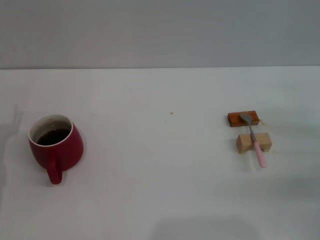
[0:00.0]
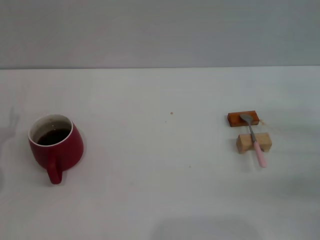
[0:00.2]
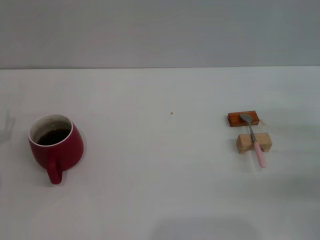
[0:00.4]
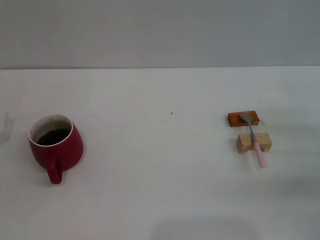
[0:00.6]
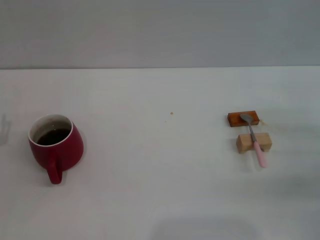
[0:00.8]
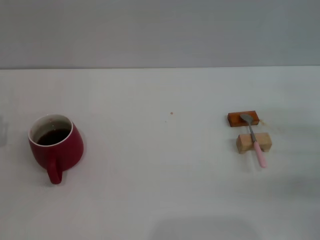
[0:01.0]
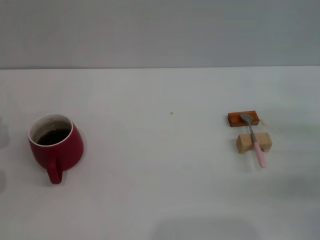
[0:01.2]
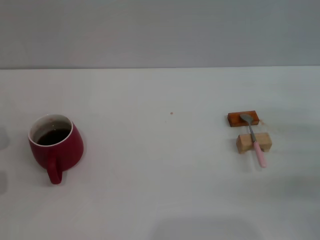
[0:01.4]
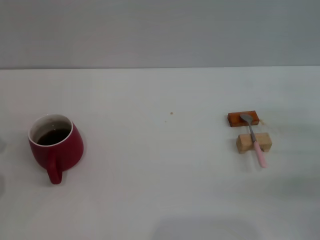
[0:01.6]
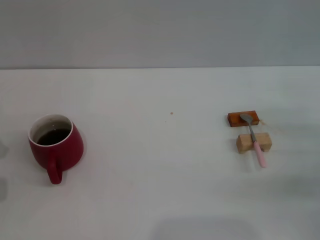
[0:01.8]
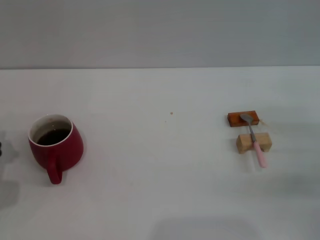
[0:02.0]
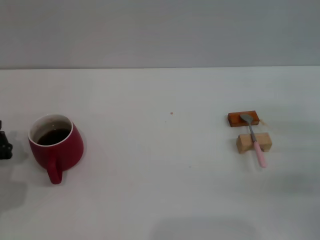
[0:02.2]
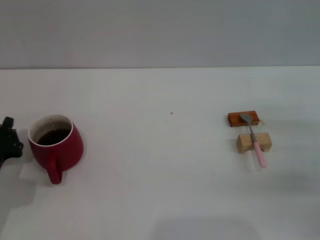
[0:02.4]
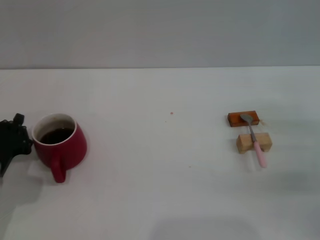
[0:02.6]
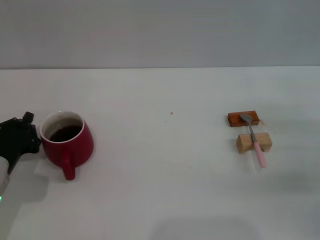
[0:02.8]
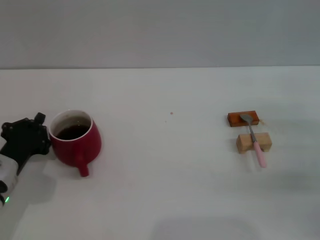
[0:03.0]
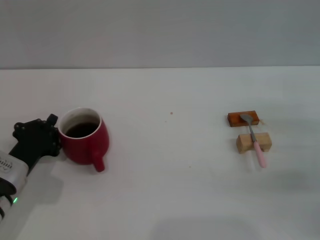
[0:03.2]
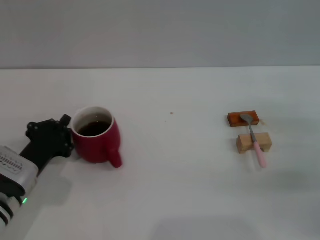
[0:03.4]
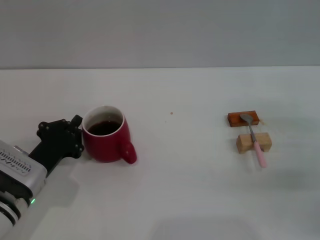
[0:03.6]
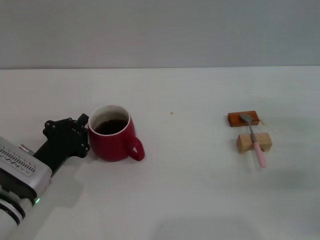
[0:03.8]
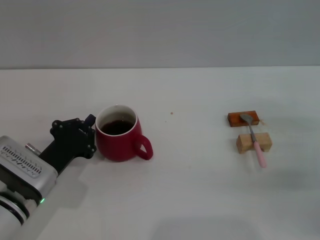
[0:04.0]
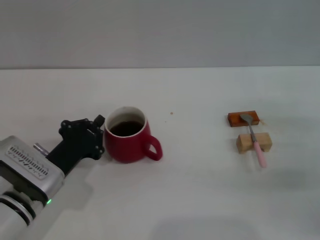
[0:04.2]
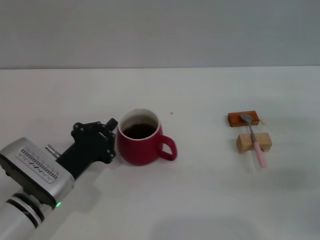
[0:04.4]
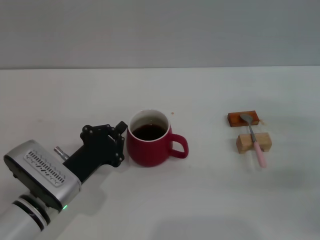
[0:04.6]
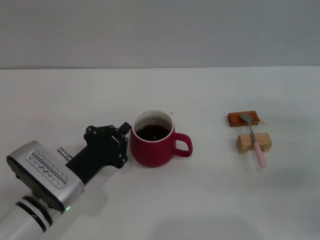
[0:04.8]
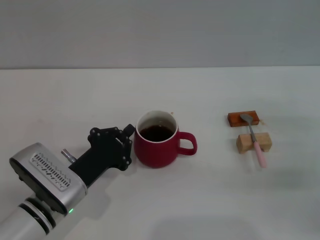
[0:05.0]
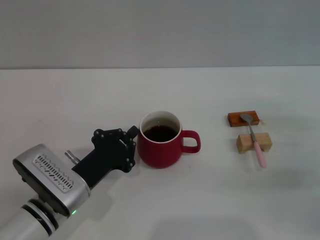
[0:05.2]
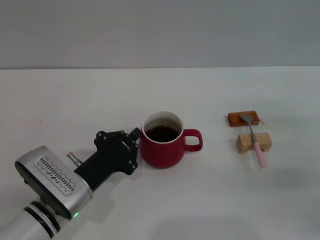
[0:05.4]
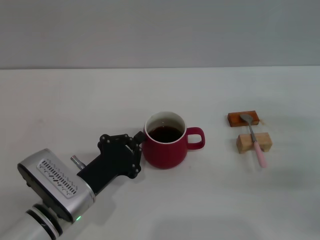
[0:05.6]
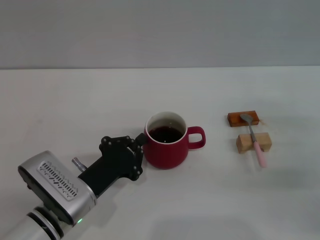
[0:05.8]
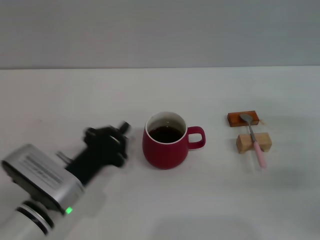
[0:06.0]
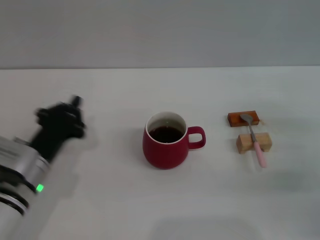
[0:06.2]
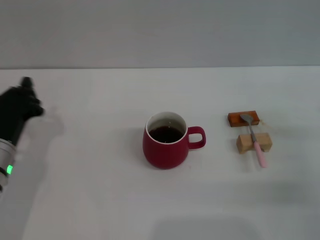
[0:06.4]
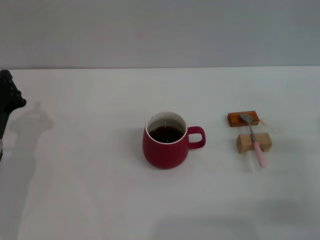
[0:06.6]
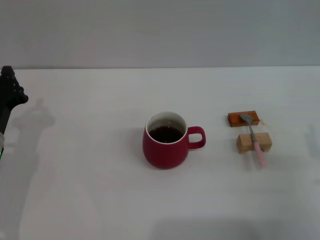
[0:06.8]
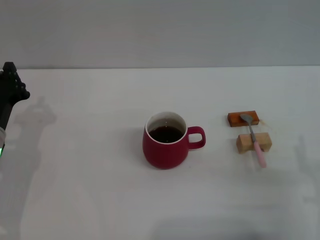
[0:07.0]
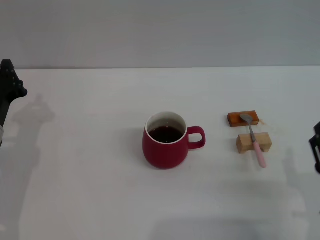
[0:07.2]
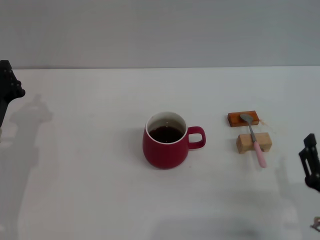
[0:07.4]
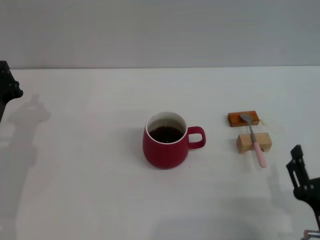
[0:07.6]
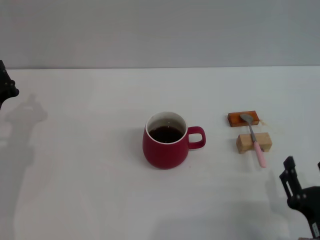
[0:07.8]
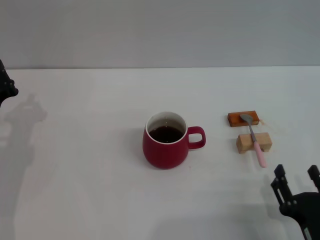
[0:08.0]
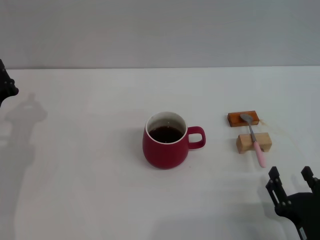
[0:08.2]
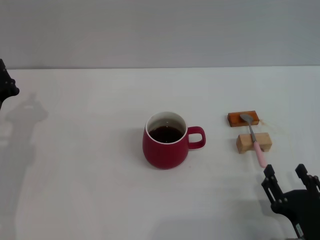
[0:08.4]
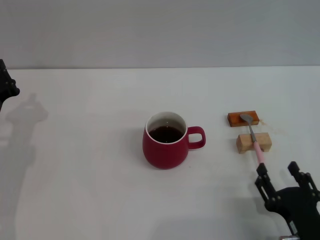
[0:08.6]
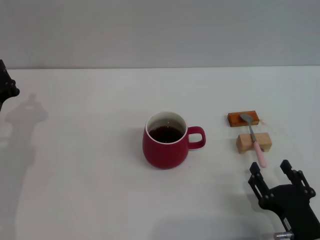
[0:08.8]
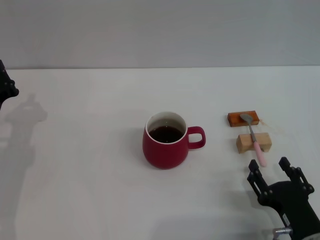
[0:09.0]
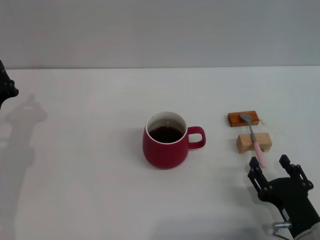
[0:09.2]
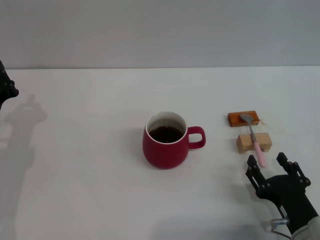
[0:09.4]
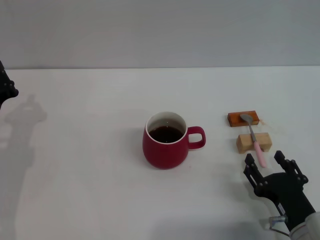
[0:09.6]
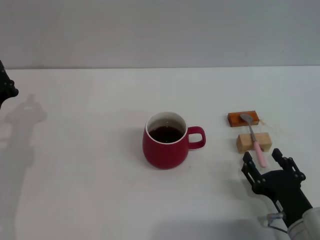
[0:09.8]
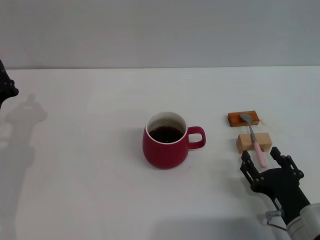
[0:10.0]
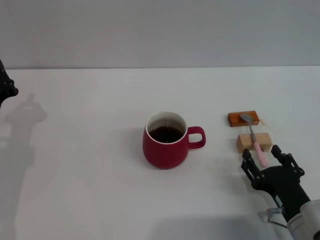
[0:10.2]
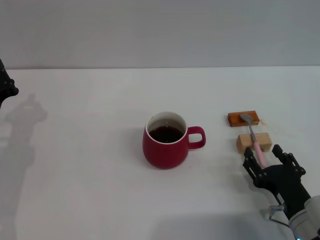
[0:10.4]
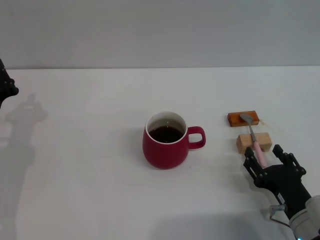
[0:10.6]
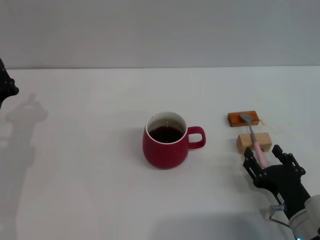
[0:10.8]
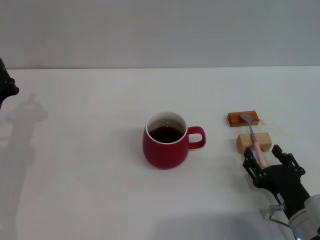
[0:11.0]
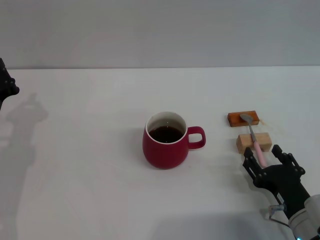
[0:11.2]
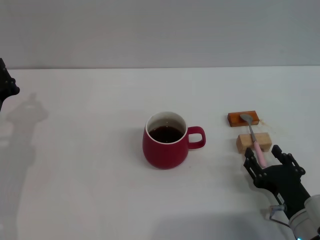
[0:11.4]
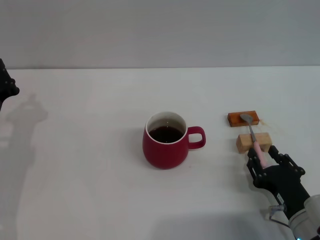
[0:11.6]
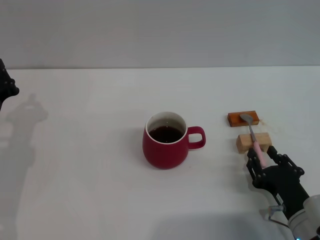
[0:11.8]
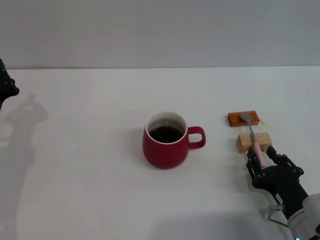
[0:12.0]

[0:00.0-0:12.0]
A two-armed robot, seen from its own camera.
Task of the whole recording: Move the red cup to the center, lift the pink spoon, stir it three times in the cup, and put the spoon into the cup.
Step, 0:00.0 to 0:06.0: Move the cup with coffee to the center of view with the left gripper.
0:01.6 to 0:03.0: The left gripper is displaced to the right by some 5 cm.
0:03.0 to 0:04.4: The left gripper moves to the right, approximately 10 cm.
0:04.4 to 0:06.0: The grippers make only small movements.
0:06.0 to 0:07.6: The right gripper heads backward and to the left, covering about 20 cm. The left gripper is displaced to the left and forward by some 10 cm.
0:07.6 to 0:09.0: The grippers stay close to where they were, moving slightly.
0:09.0 to 0:10.4: The grippers stay close to where they were, moving slightly.
0:10.4 to 0:12.0: The right gripper closes.

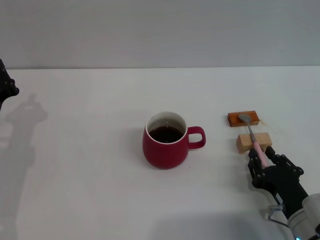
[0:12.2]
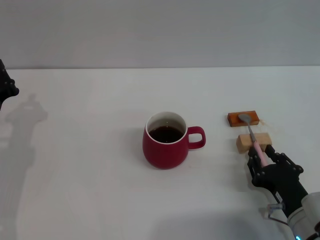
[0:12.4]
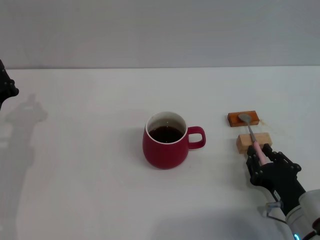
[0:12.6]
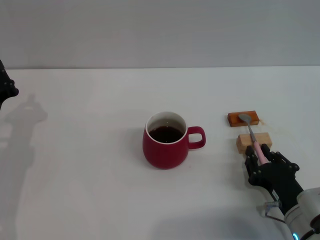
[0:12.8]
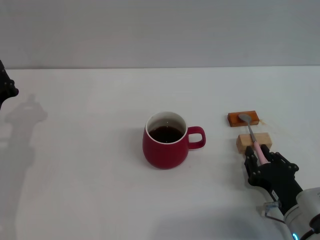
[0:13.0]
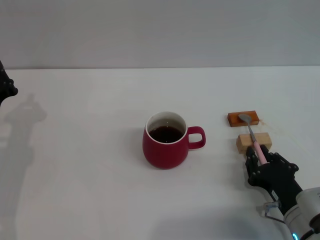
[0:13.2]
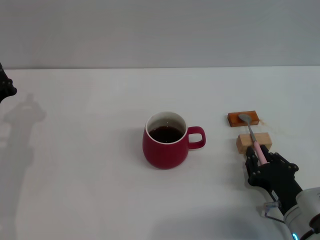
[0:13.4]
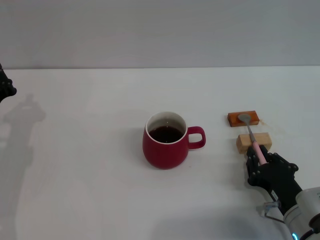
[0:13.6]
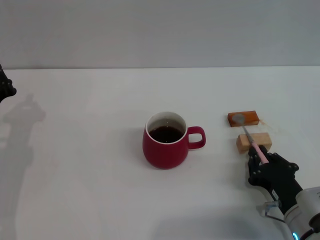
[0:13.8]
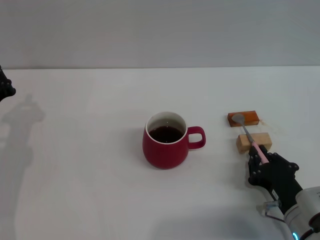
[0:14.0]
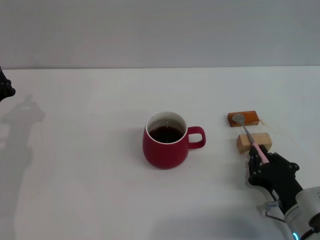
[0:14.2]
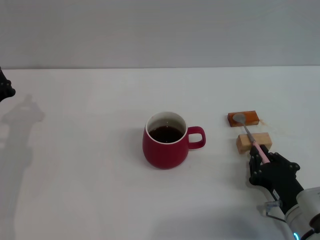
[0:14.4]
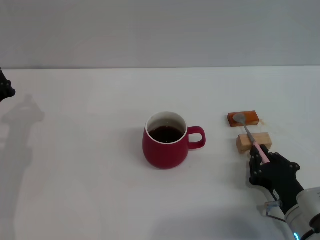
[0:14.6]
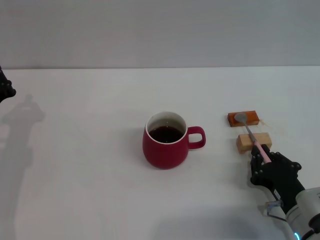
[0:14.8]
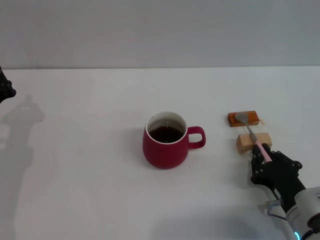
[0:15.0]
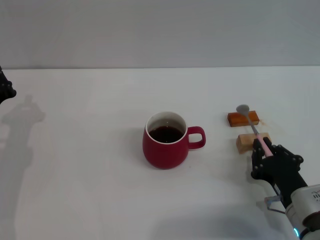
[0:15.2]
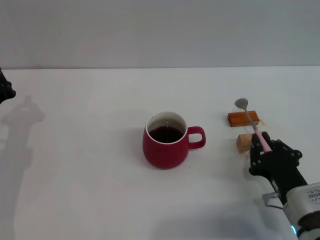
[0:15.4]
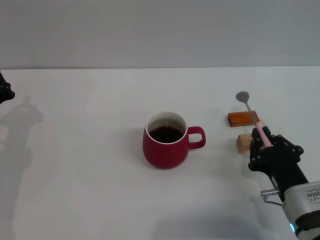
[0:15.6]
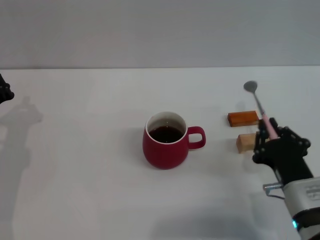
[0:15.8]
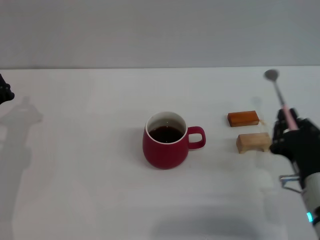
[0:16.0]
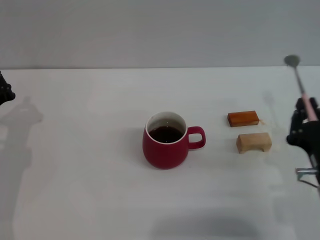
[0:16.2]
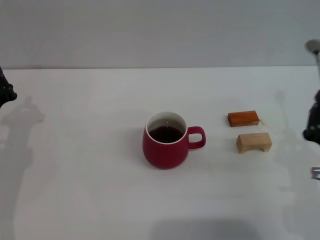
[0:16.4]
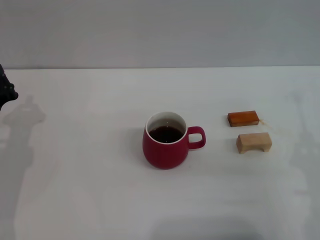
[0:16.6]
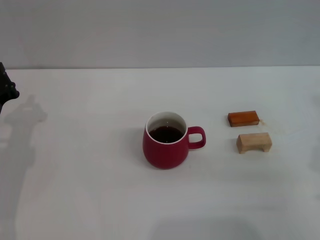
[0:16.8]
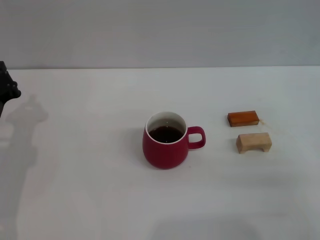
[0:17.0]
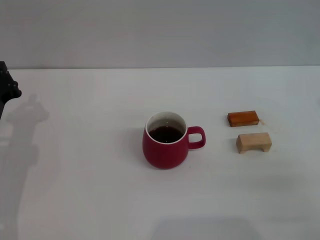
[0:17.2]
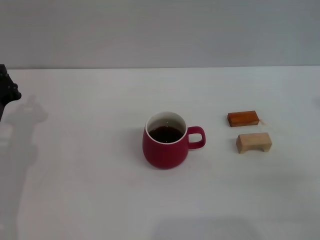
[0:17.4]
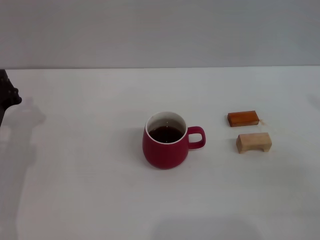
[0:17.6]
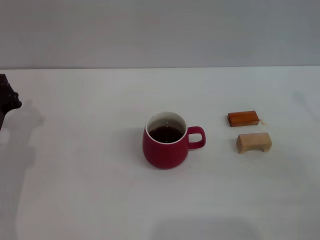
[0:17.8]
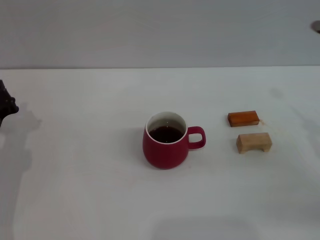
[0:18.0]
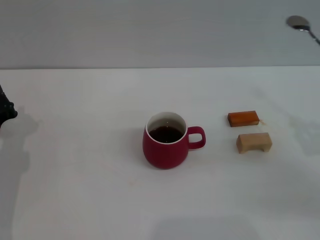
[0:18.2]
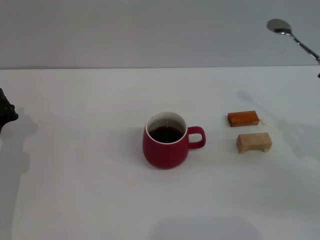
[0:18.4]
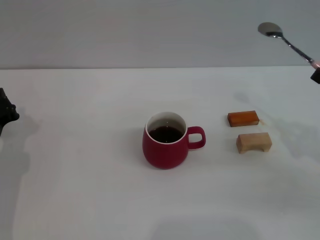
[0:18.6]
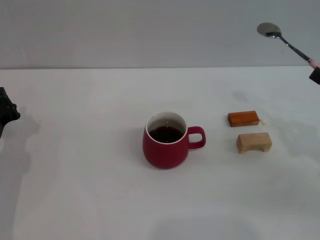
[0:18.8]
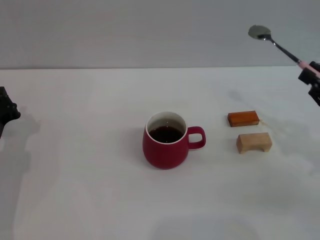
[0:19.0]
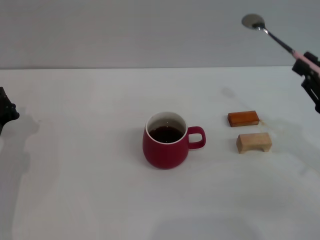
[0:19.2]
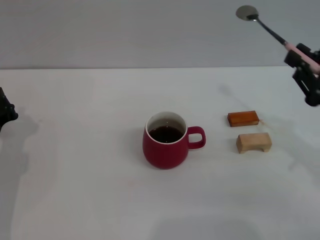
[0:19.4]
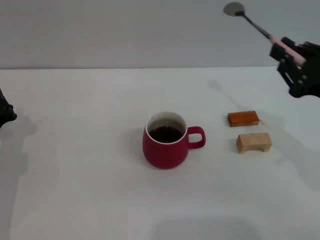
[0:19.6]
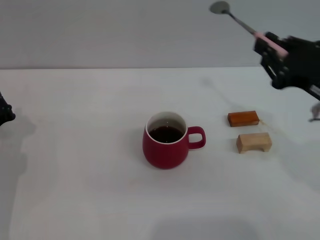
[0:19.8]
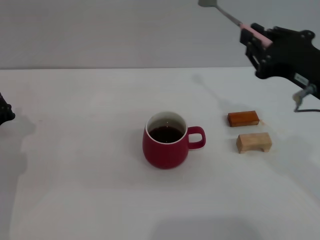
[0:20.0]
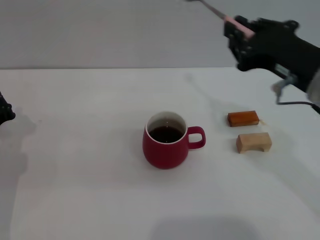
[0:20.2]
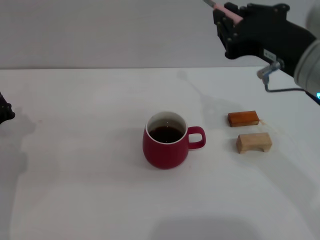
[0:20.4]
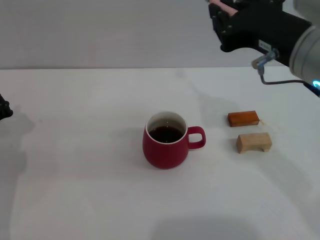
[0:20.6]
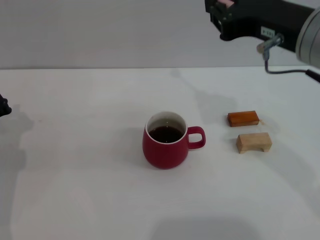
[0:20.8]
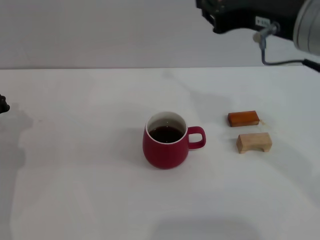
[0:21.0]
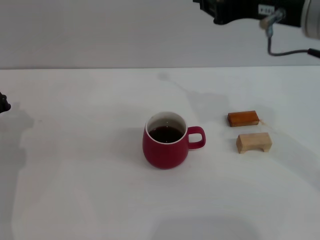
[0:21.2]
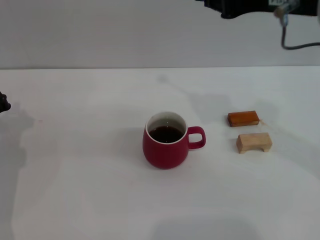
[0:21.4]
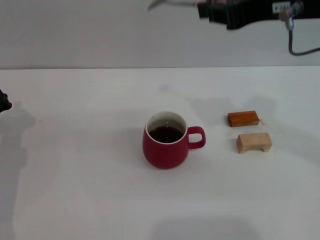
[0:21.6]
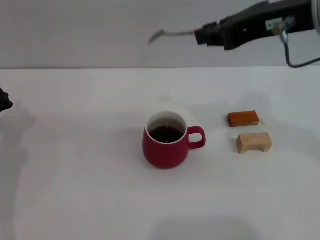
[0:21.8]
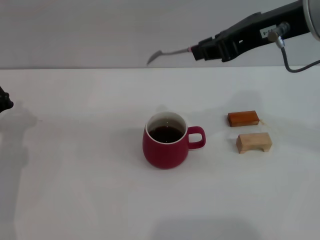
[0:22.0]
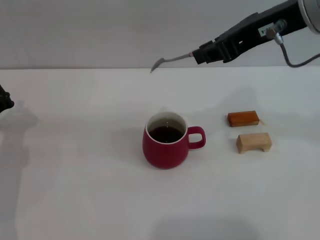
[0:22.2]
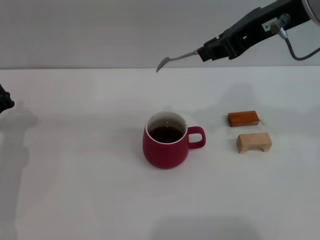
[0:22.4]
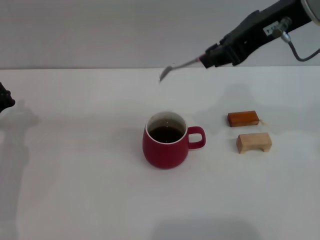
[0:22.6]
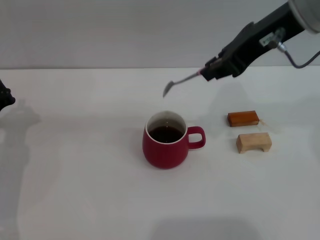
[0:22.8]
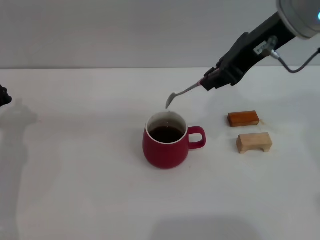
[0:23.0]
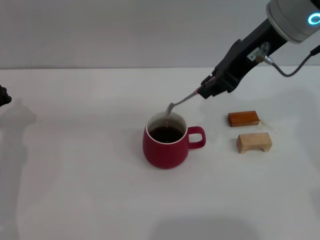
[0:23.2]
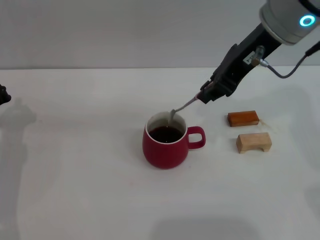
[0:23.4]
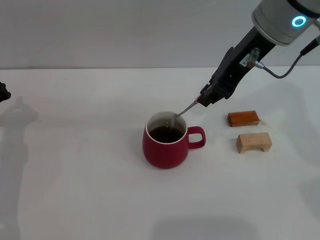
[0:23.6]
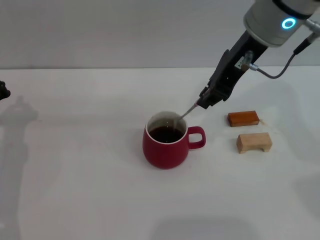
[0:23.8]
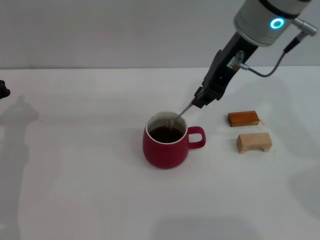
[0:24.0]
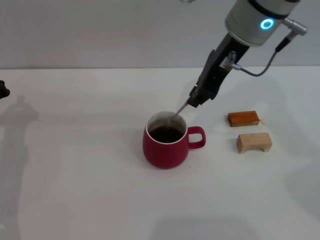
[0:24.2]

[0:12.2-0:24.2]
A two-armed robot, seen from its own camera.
Task of the whole recording: Move the red cup to the center, lift the pink spoon, stir it three times in the cup, and put the spoon into the cup.
Step, 0:12.2 to 0:16.2: Pick up the spoon with the right gripper.
0:12.2 to 0:13.8: The two grippers keep their place.
0:13.8 to 0:15.2: The grippers move only a little.
0:15.2 to 0:16.6: The right gripper goes roughly 10 cm upward.
0:16.6 to 0:18.2: The right gripper shifts approximately 15 cm to the right and forward.
0:18.2 to 0:19.8: The right gripper goes roughly 15 cm to the left and upward.
0:19.8 to 0:21.2: The right gripper is displaced upward and to the left by roughly 15 cm.
0:21.2 to 0:22.6: The right gripper shifts approximately 5 cm forward.
0:22.6 to 0:24.2: The right gripper shifts some 10 cm to the left, forward and downward.
